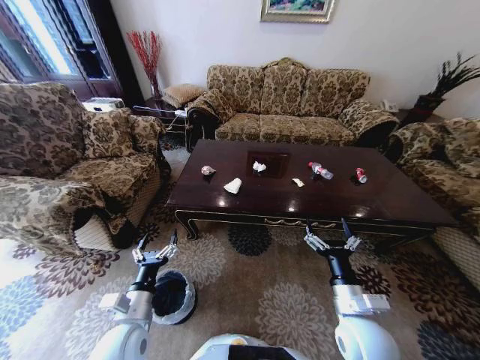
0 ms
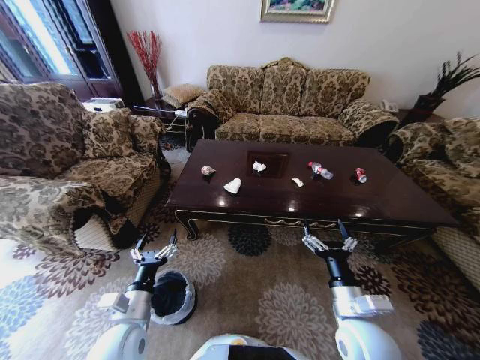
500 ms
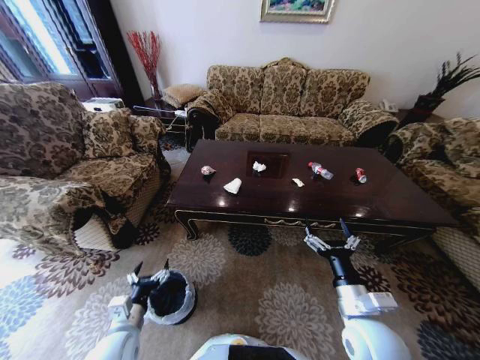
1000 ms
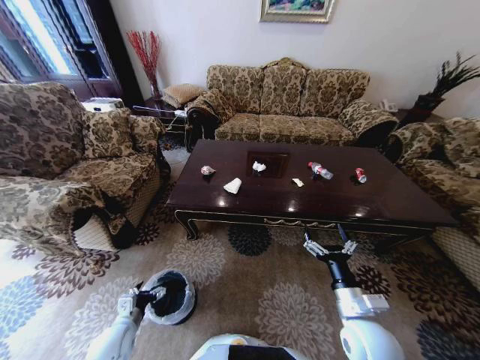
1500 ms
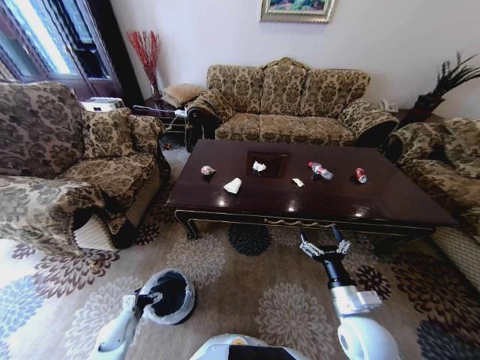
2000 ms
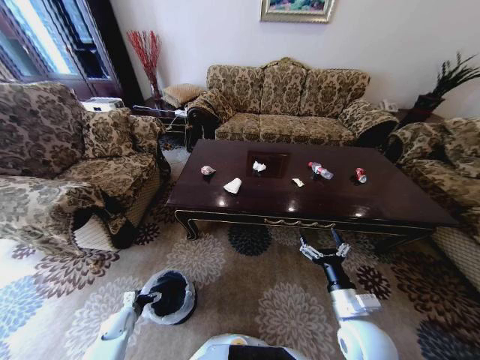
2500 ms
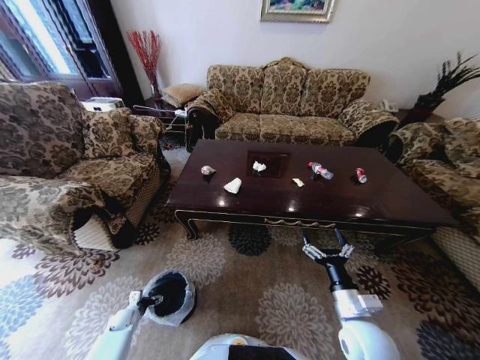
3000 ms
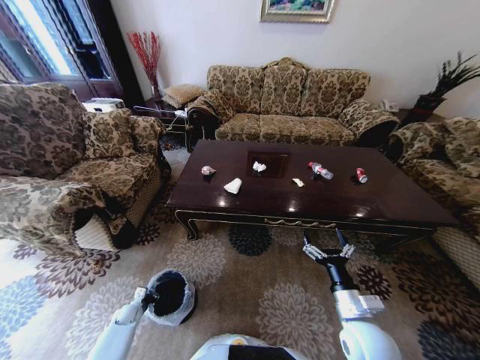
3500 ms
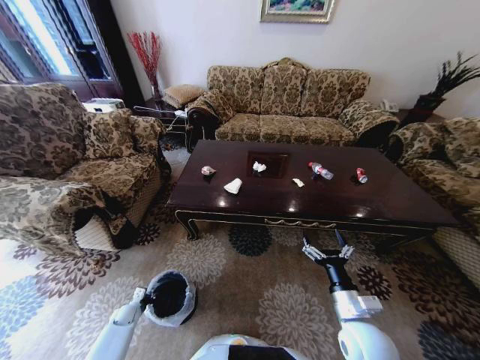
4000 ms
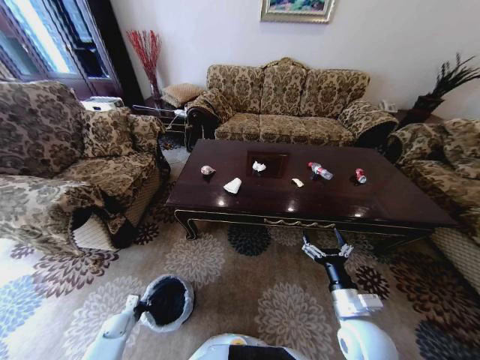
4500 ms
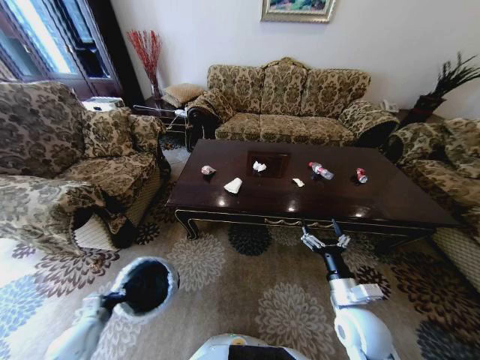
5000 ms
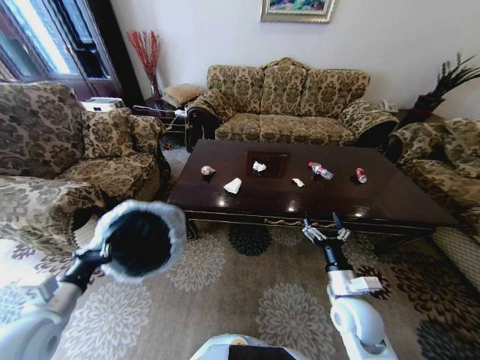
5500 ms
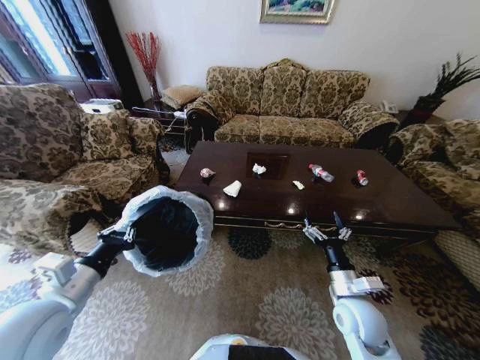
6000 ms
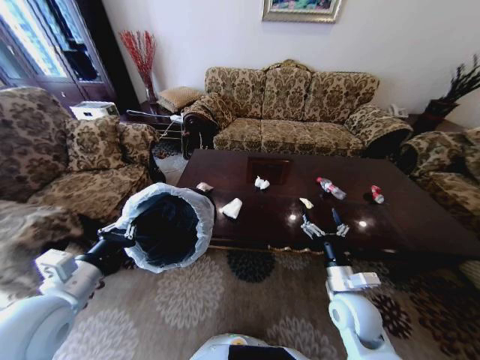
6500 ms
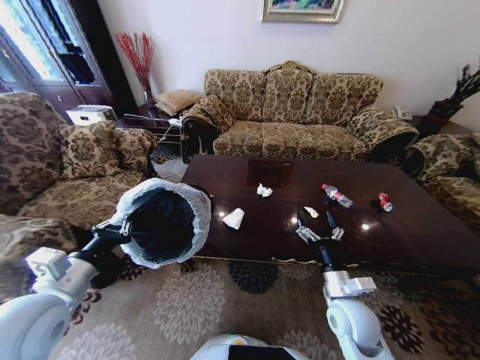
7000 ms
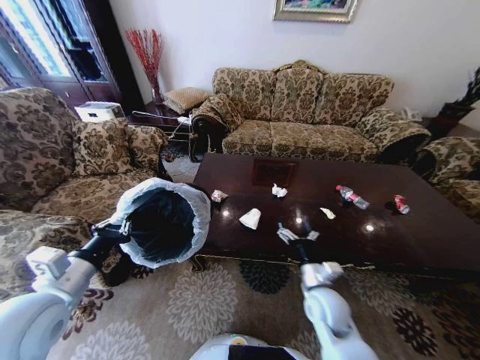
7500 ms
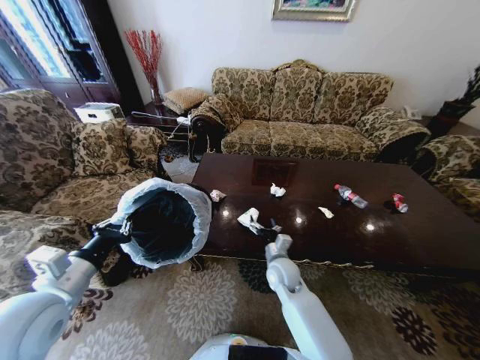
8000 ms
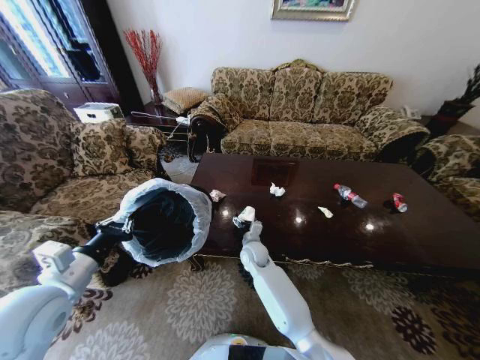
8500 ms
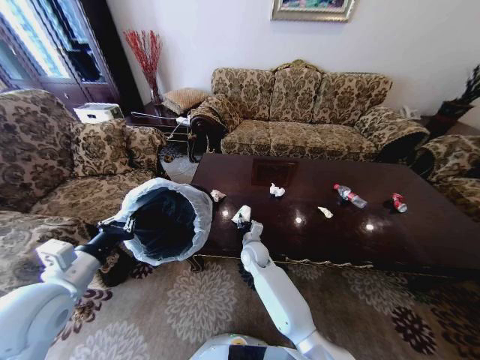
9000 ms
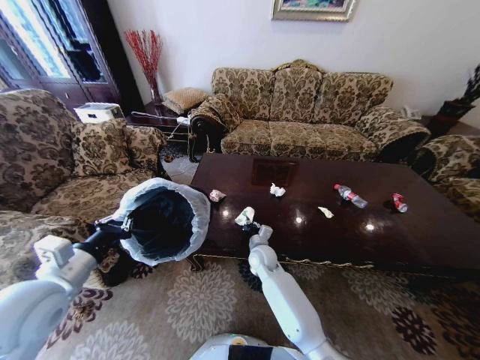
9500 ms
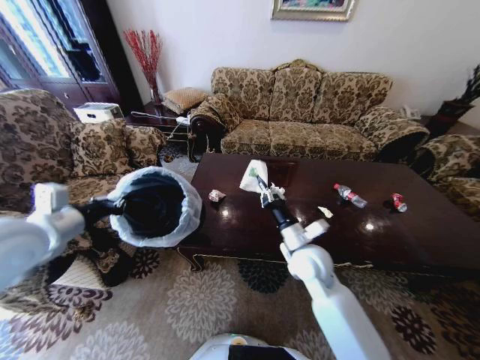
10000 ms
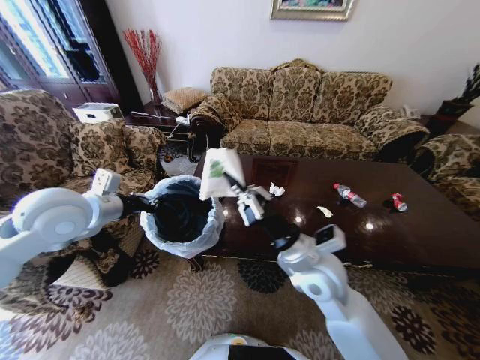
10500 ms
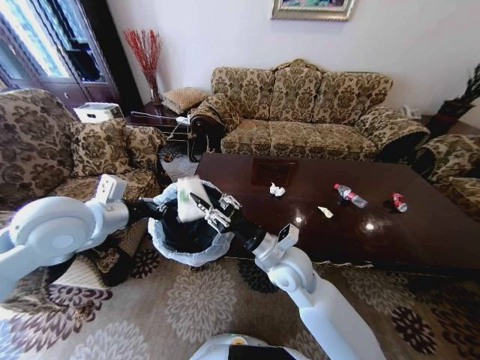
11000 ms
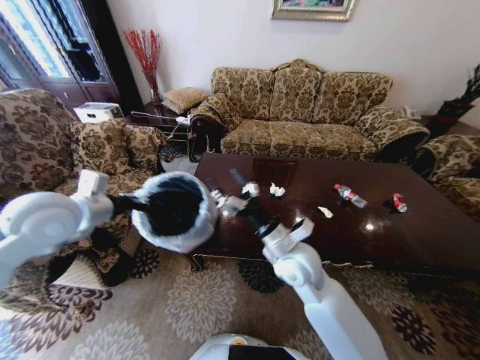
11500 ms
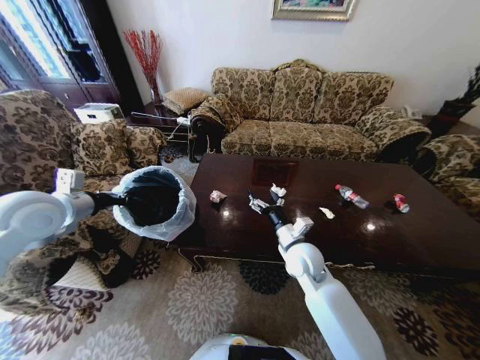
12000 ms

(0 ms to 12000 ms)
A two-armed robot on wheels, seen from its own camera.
Task of the whole recording: Move to the front of the table and place the trash on the table into the trash bin.
2000 ms - 4000 ms: The left gripper travels downward and forward by roughly 10 cm, and closes its fingers.
4000 ms - 6000 ms: The left gripper travels upward by some 40 cm.
6000 ms - 8000 ms: The right gripper goes roughly 20 cm to the left and forward.
8000 ms - 10000 ms: The right gripper goes roughly 15 cm upward and to the right, and closes up. Meanwhile the left gripper shifts some 15 cm forward and upward.
10000 ms - 12000 ms: The right gripper shifts by approximately 5 cm, and opens its fingers, while the left gripper heads forward, covering roughly 5 cm, and reaches some 5 cm to the right, then returns.

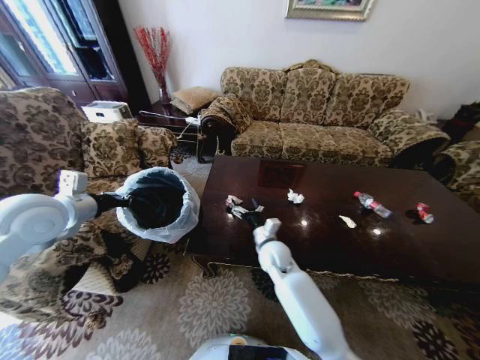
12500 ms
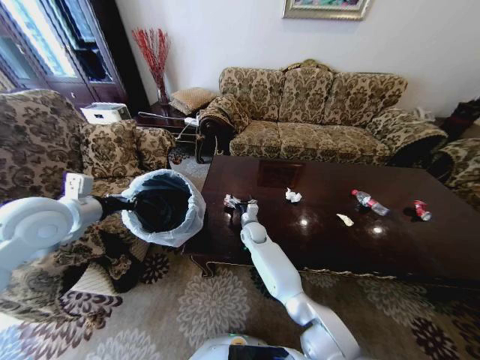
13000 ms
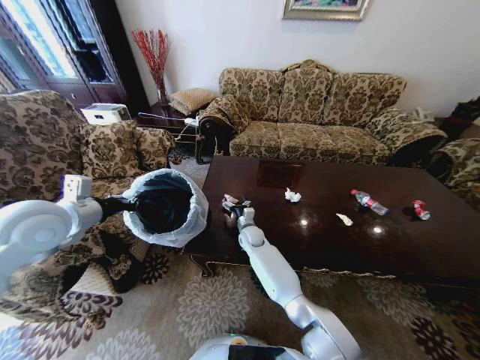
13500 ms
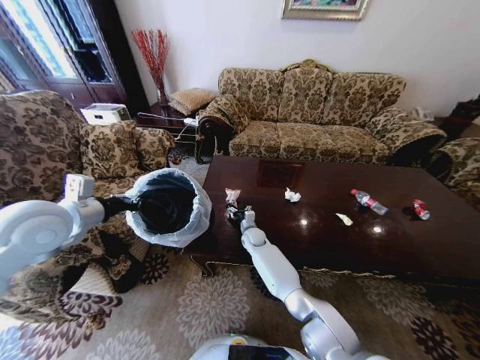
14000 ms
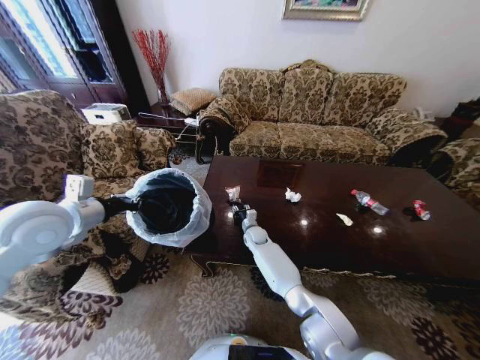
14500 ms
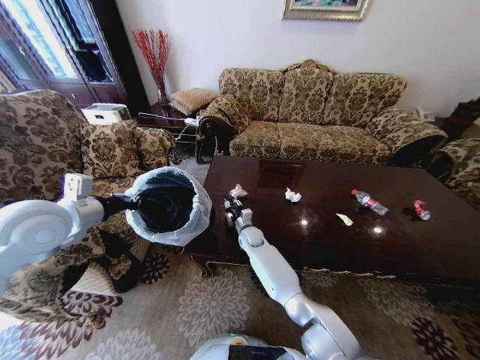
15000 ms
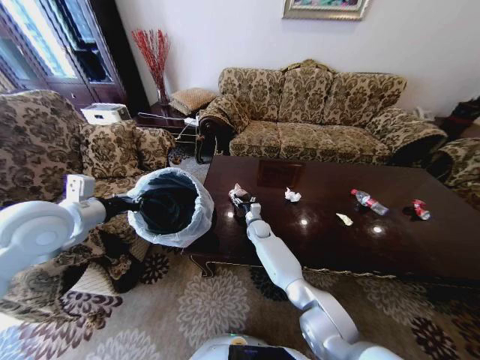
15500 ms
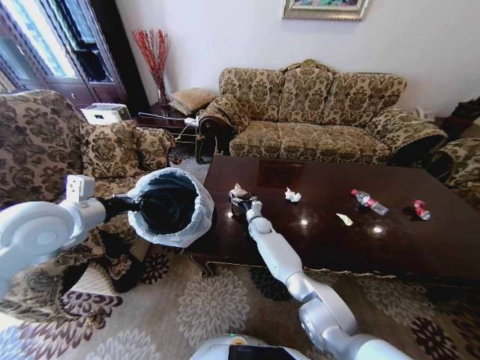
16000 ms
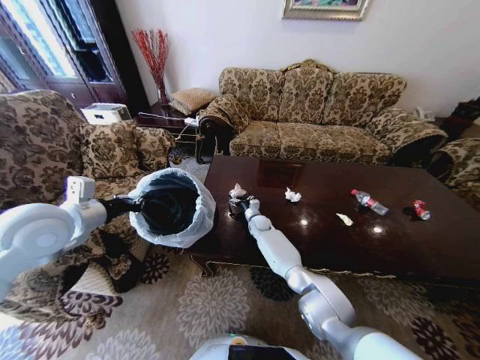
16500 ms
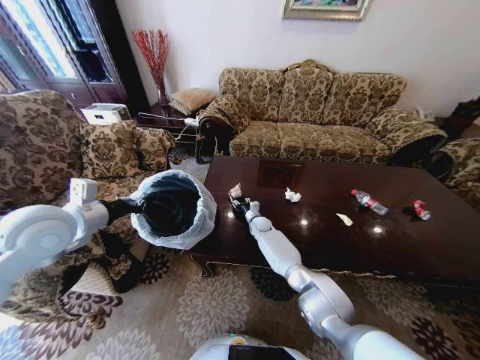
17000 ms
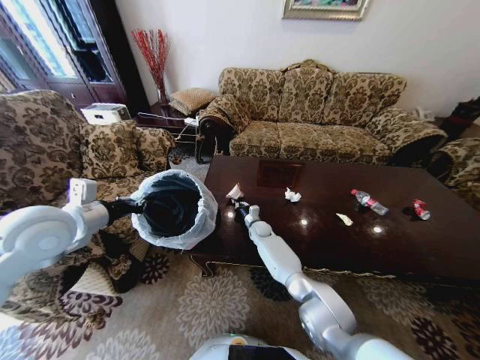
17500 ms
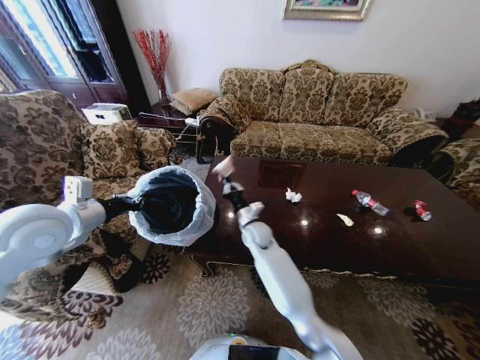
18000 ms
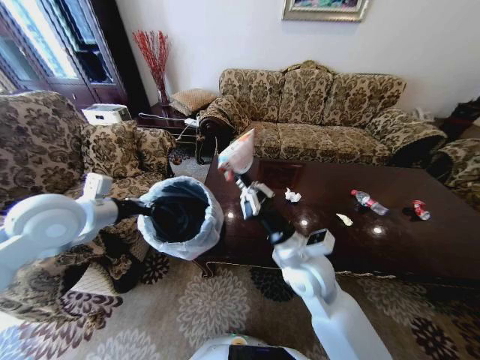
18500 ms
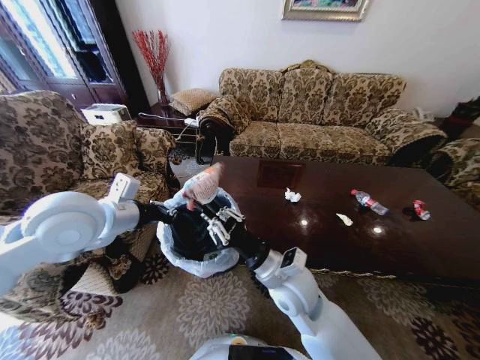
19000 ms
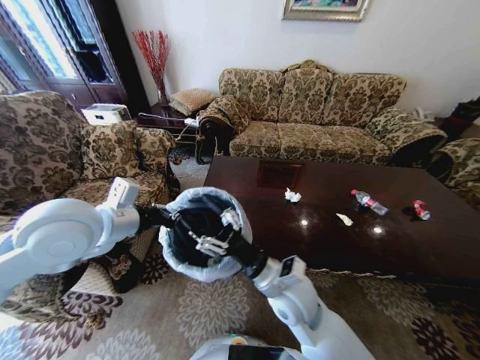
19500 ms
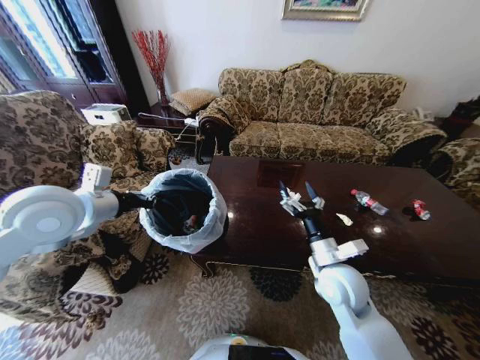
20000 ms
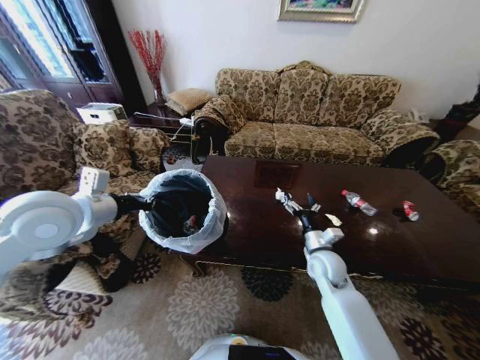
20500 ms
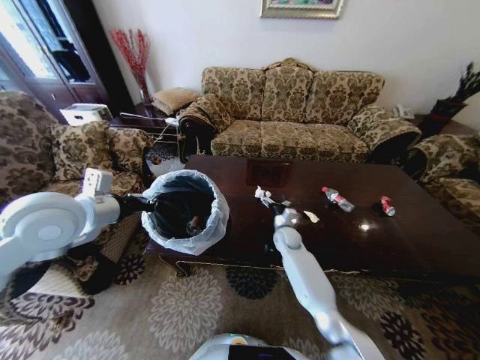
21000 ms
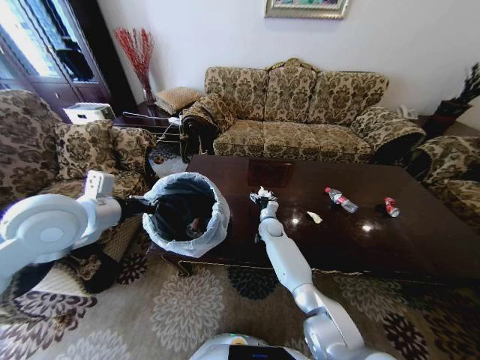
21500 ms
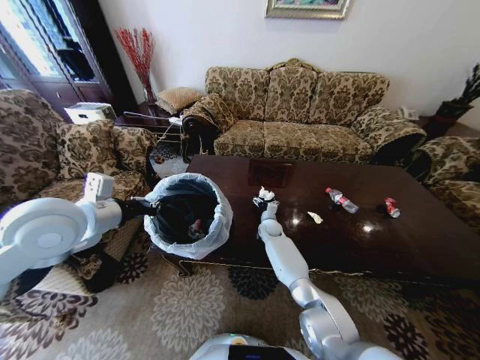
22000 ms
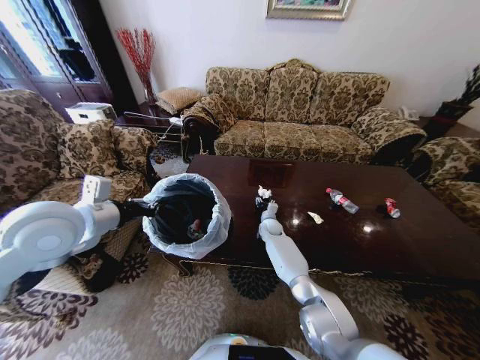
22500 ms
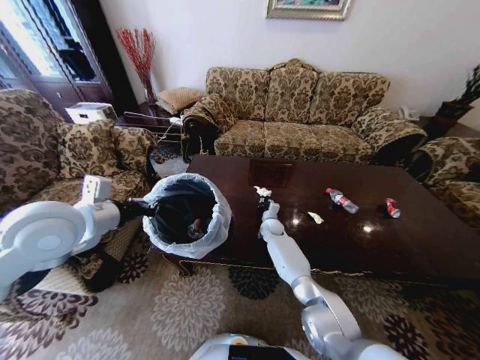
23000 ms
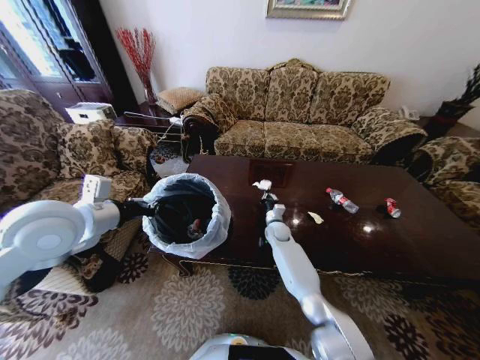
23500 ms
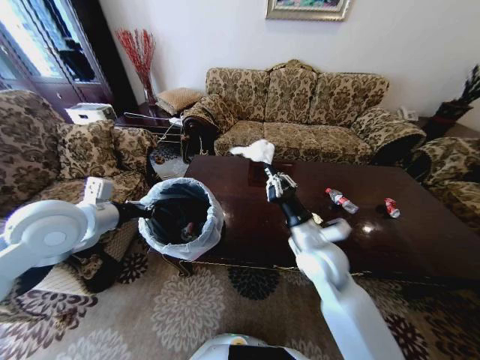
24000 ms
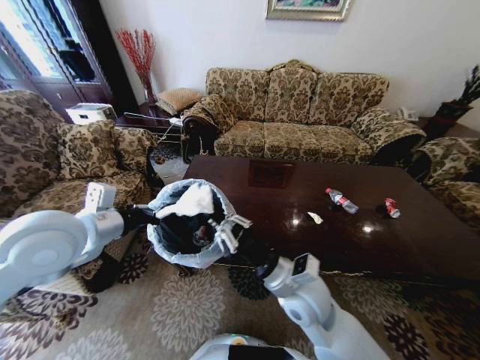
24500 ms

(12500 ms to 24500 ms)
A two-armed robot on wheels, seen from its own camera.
Task of the whole recording: Move to the front of the table and place the trash on the table into the trash bin.
12500 ms - 14500 ms: The right gripper heads forward and downward, covering some 15 cm, and closes up.
14500 ms - 16500 ms: The right gripper shifts about 5 cm forward, and opens.
16500 ms - 18500 ms: The right gripper shifts about 35 cm backward and upward, and closes its fingers.
18500 ms - 20500 ms: The right gripper shifts roughly 15 cm downward, to the right and forward, and opens up.
20500 ms - 22500 ms: The right gripper goes approximately 25 cm forward, to the left and downward, and closes.
22500 ms - 24500 ms: The right gripper goes about 40 cm backward and upward, and closes up.

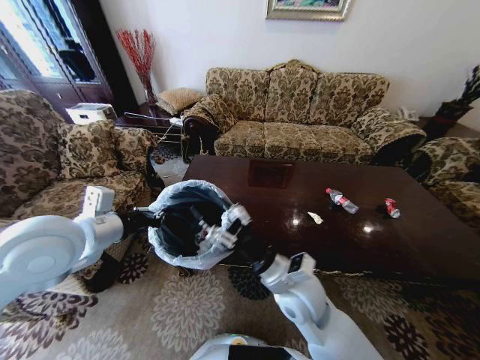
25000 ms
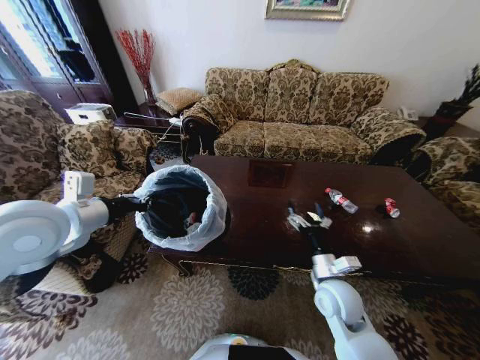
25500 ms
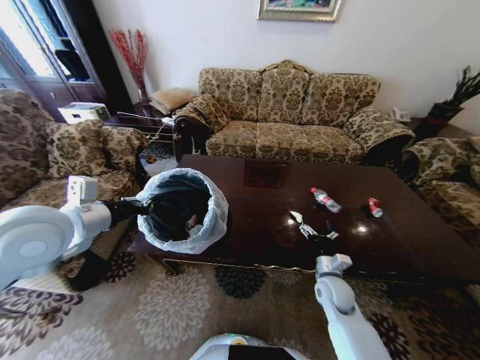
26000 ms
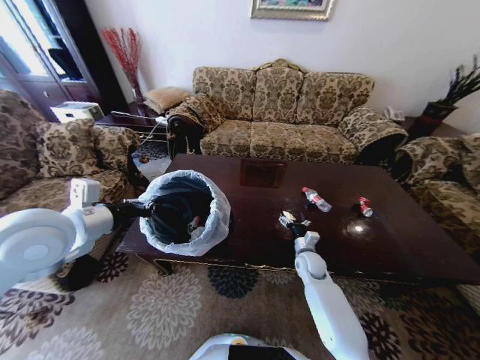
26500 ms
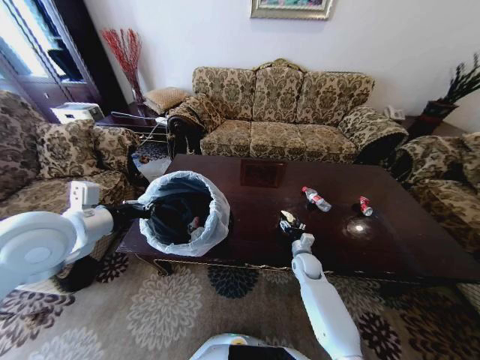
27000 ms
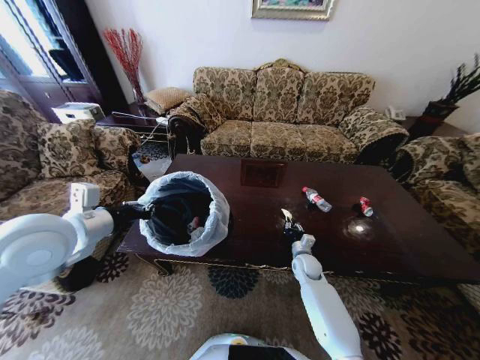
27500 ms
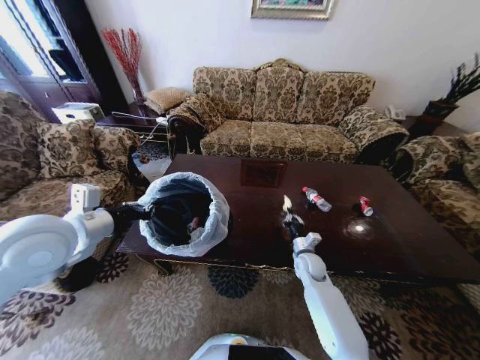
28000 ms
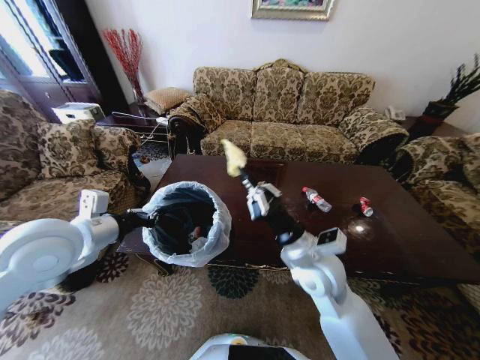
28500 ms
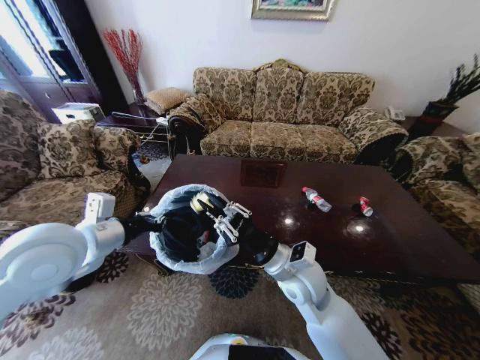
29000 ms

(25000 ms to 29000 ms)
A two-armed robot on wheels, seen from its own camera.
Task of the whole recording: Move to the front of the table and place the trash on the table into the trash bin.
25000 ms - 27000 ms: The right gripper travels downward, forward and to the right by about 30 cm.
27000 ms - 29000 ms: The right gripper goes roughly 30 cm upward, backward and to the left, and closes up.
